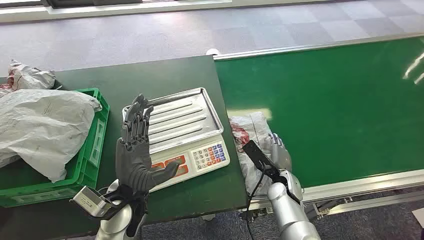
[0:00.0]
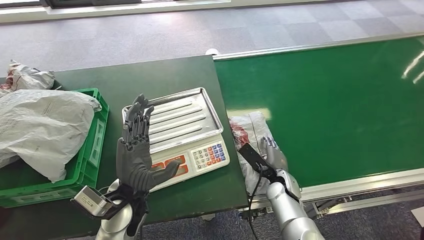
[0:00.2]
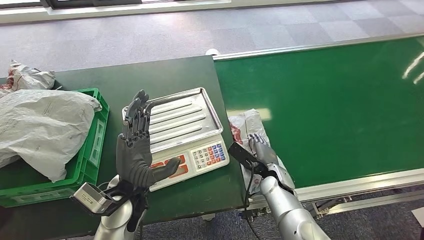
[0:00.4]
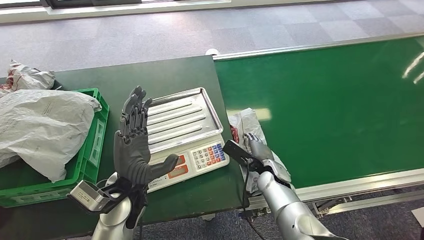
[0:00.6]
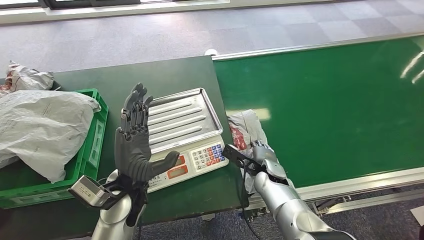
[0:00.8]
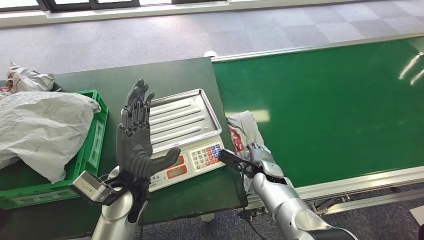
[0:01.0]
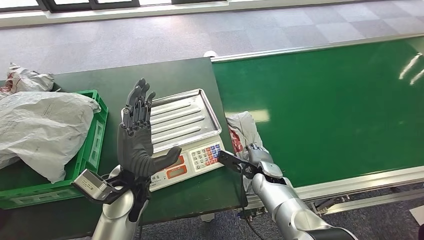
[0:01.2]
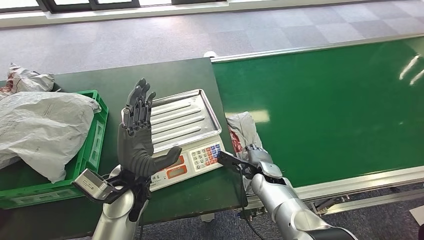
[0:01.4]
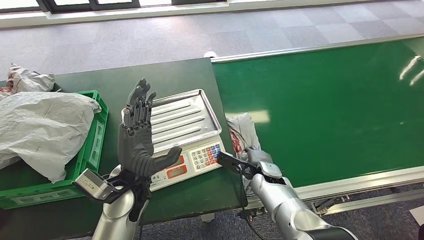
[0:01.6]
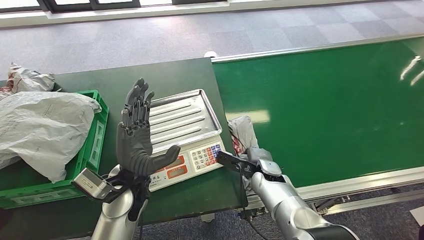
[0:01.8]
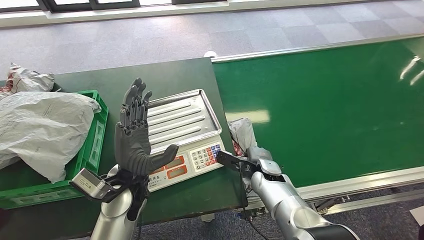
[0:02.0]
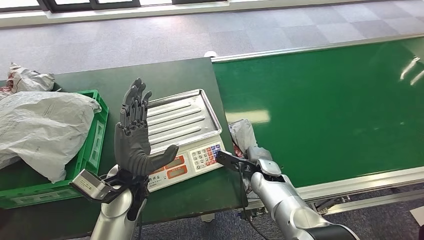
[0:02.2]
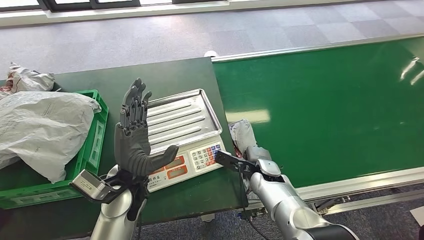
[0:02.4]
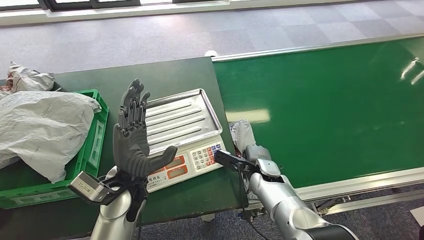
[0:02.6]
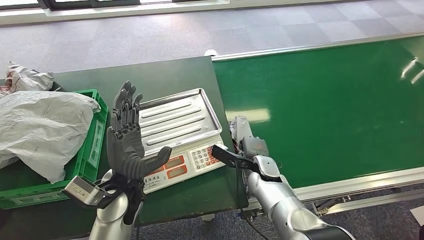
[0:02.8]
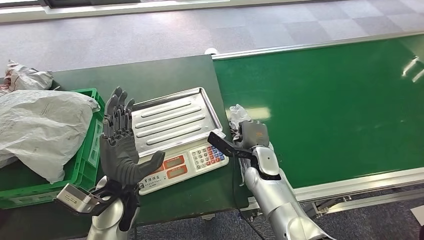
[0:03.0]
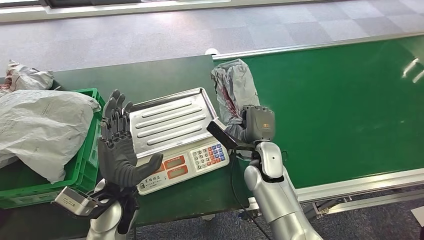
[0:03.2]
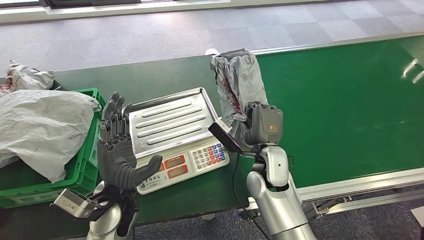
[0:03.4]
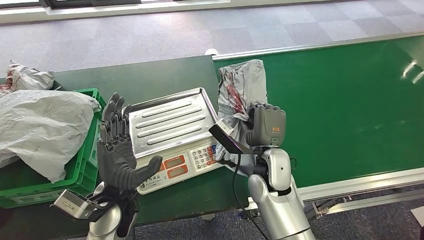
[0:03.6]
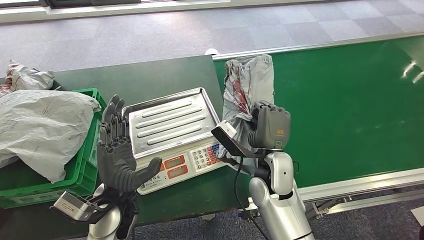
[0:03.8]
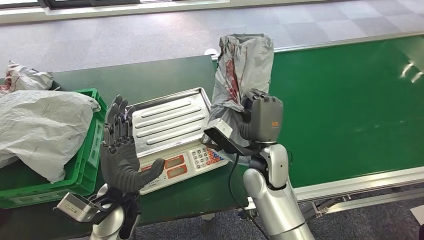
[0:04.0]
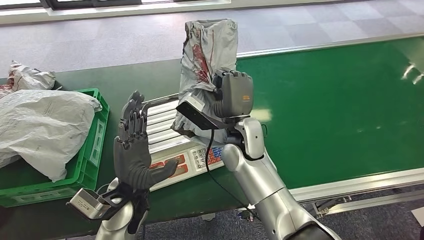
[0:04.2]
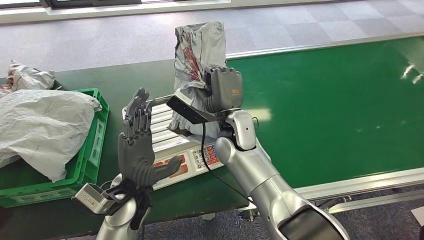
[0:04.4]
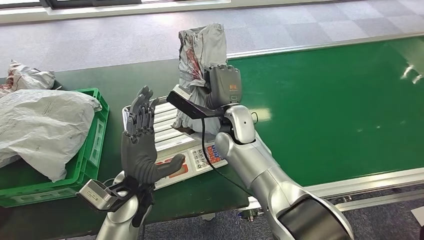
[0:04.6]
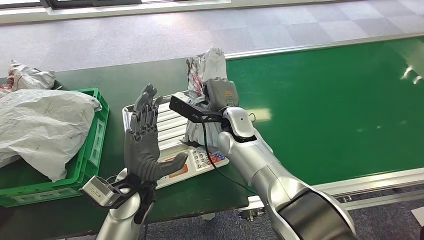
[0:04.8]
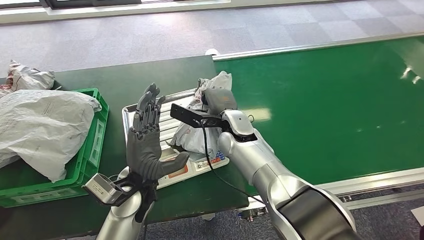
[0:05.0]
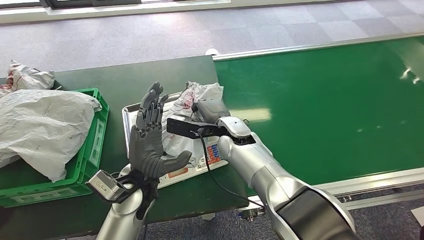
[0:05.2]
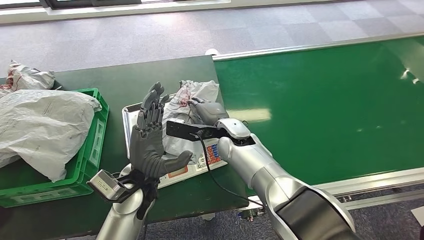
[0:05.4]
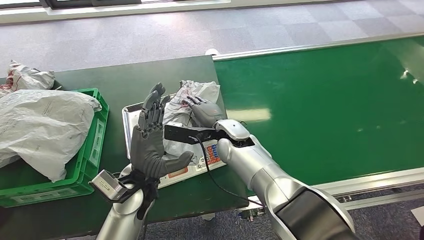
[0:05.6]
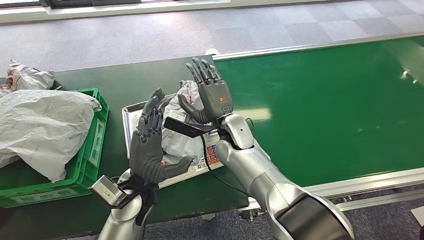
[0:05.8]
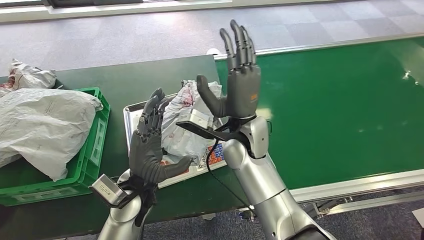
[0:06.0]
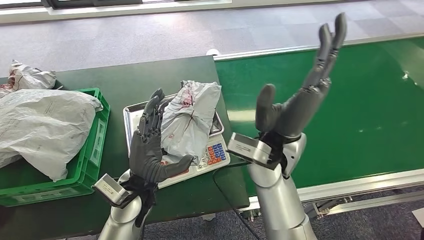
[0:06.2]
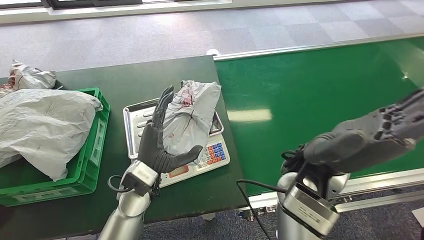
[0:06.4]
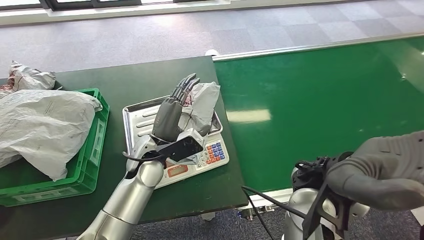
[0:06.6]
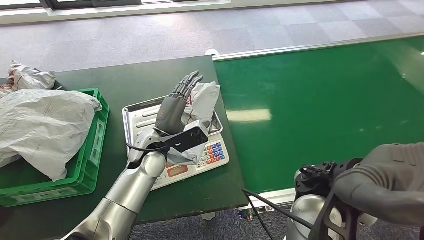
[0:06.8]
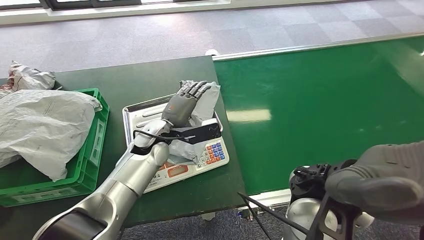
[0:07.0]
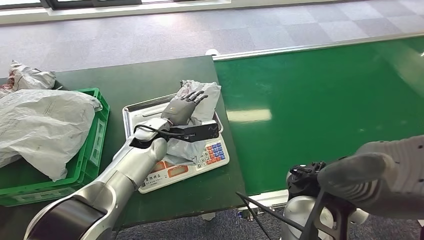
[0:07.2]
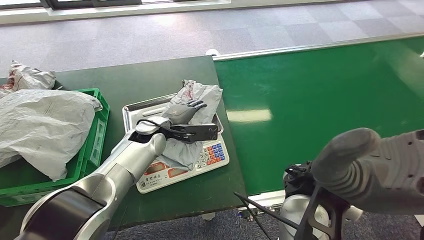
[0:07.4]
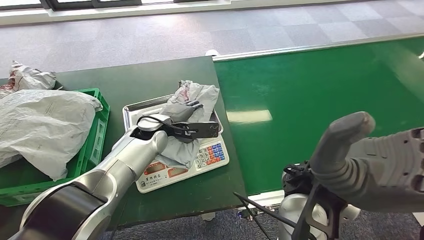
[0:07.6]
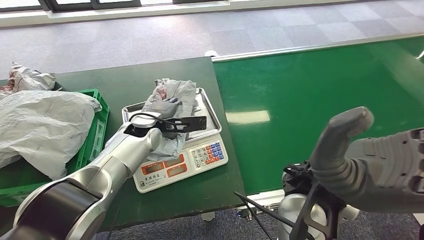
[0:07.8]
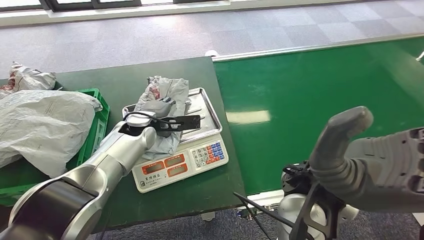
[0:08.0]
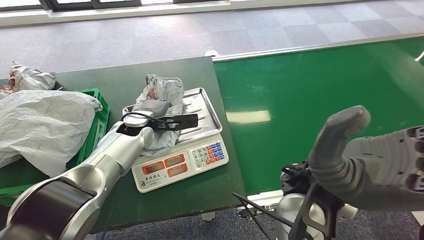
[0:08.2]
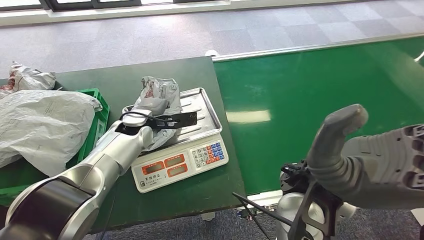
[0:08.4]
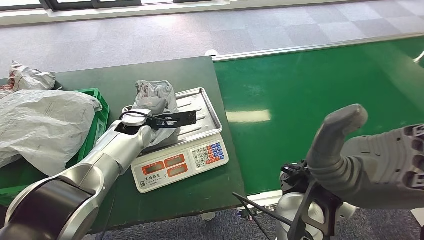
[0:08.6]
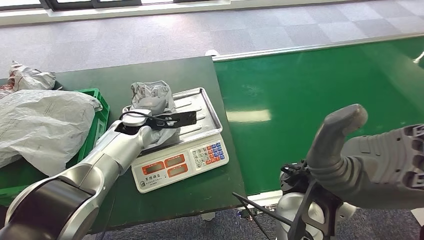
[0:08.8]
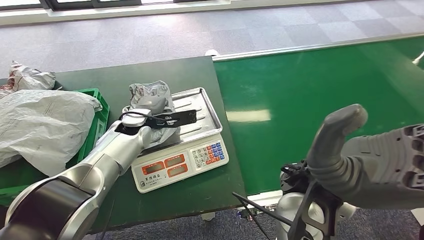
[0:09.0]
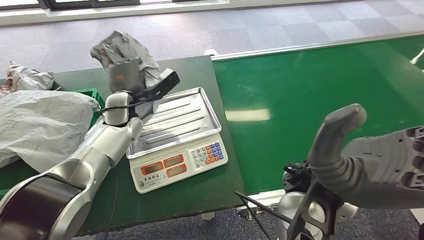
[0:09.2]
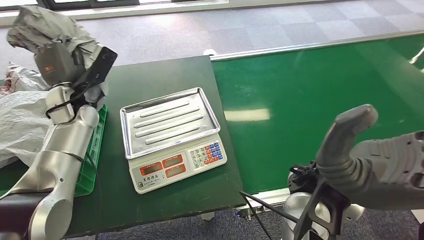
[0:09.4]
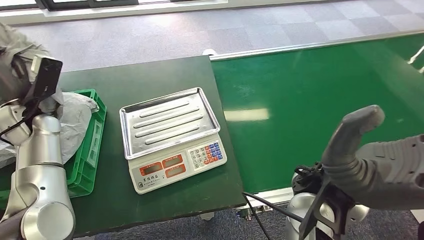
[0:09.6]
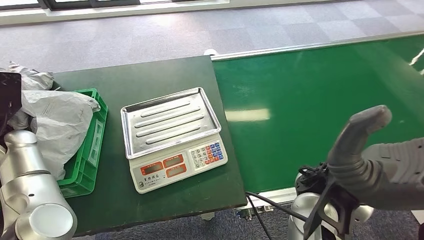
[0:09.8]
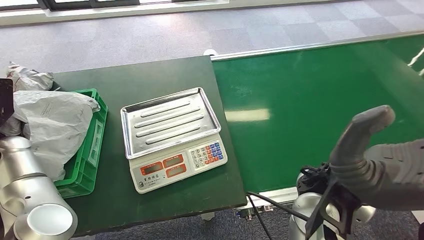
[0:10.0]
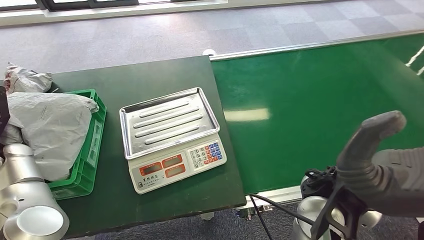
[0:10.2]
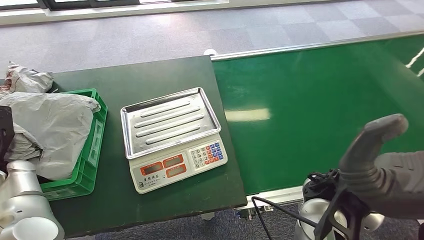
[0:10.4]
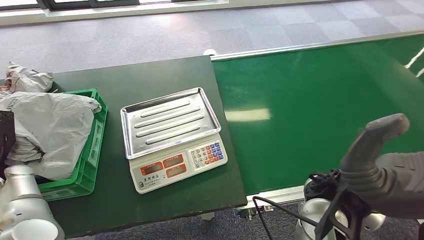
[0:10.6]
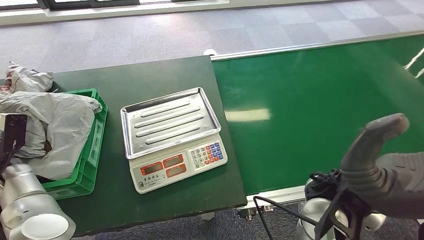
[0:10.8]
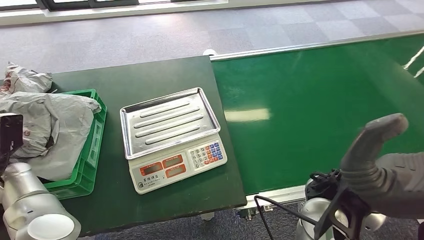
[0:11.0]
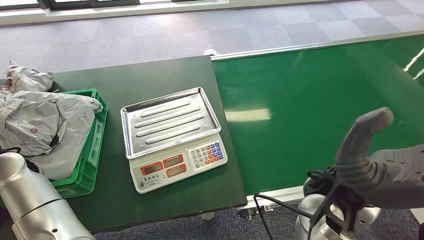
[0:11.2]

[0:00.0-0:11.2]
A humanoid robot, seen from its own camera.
Step, 0:00.0 to 0:03.6: Pick up the package from the conveyor belt.
Step, 0:03.8 to 0:06.8: Place the package onto the inbound machine.
Step, 0:07.0 to 0:09.2: Pick up the package from the inbound machine.
Step, 0:09.4 to 0:11.2: Place the package into the parcel locker.
0:09.6 to 0:11.2: The left hand heads backward, covering about 10 cm, and reaches about 10 cm downward, then returns.

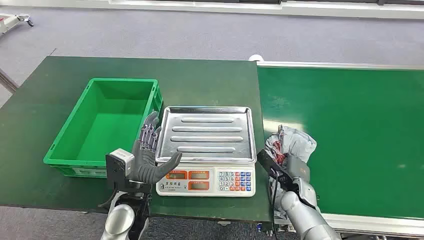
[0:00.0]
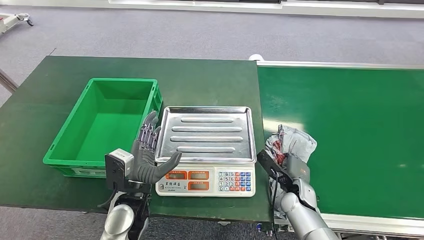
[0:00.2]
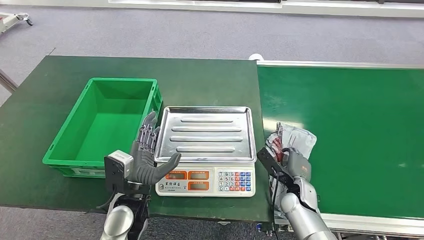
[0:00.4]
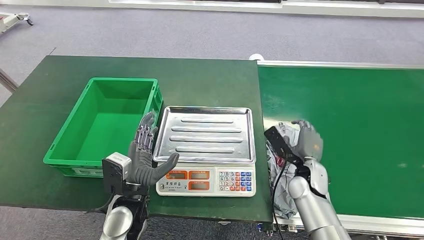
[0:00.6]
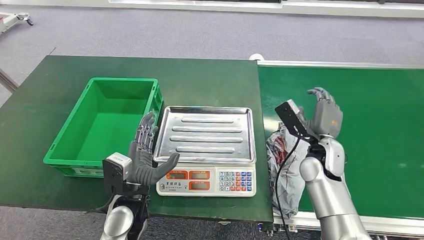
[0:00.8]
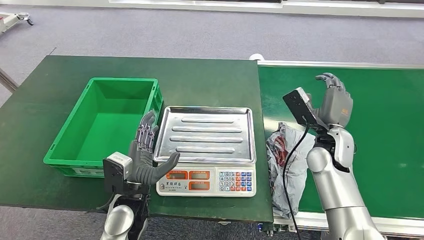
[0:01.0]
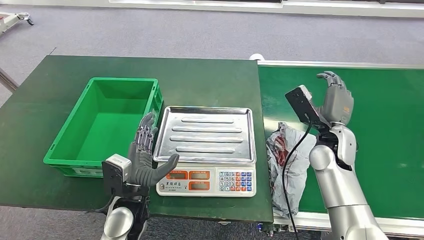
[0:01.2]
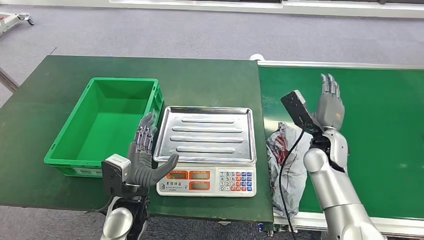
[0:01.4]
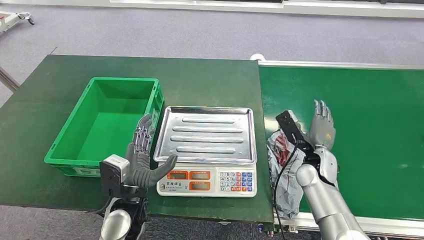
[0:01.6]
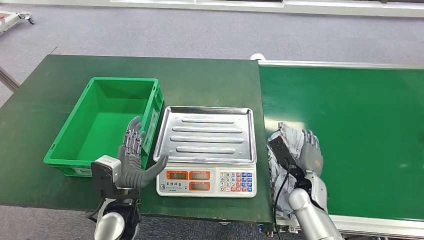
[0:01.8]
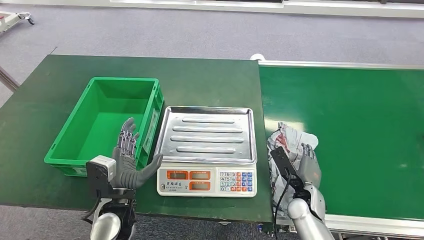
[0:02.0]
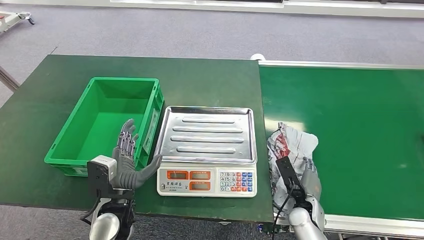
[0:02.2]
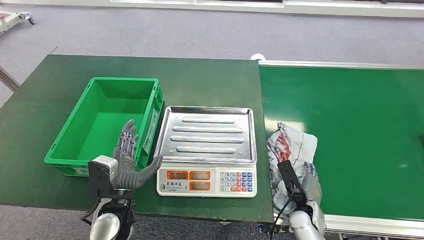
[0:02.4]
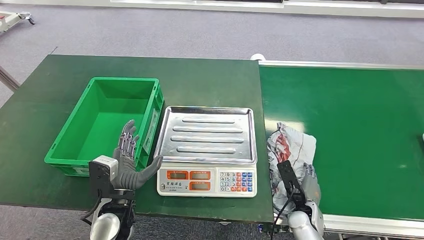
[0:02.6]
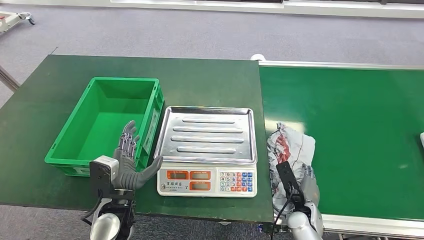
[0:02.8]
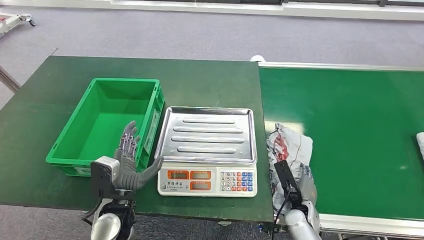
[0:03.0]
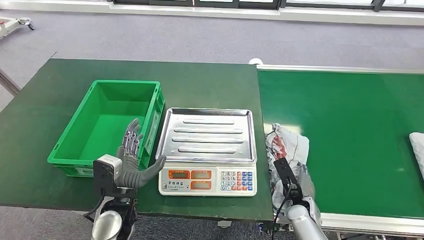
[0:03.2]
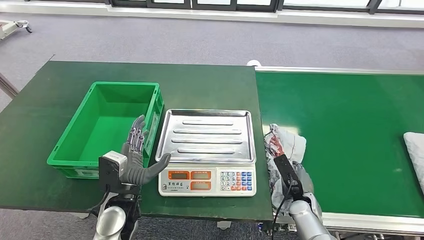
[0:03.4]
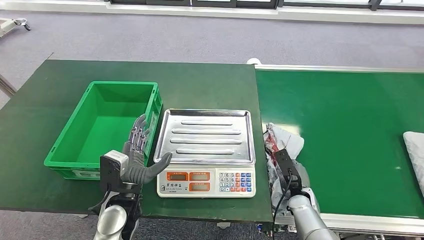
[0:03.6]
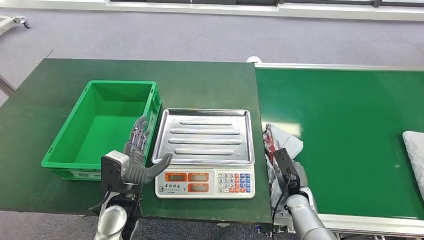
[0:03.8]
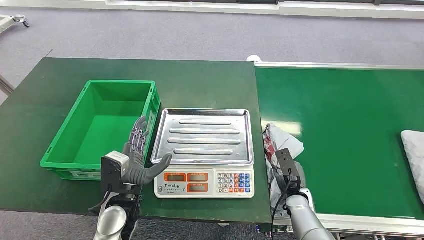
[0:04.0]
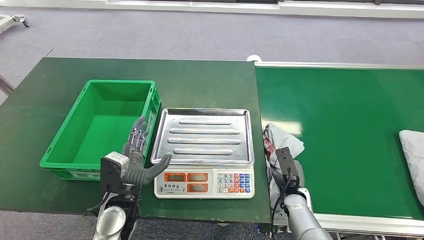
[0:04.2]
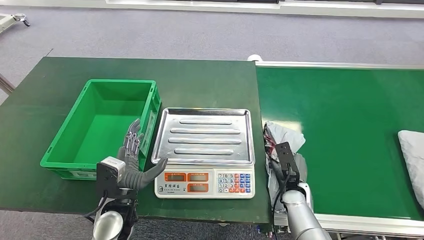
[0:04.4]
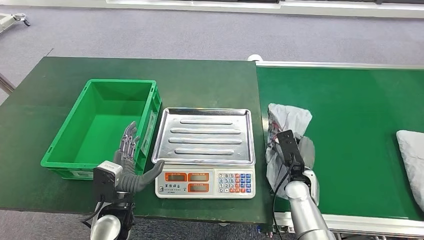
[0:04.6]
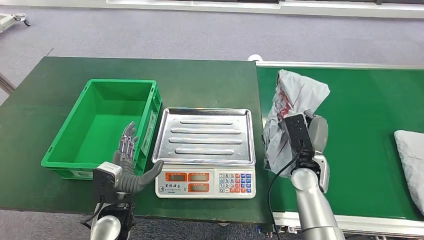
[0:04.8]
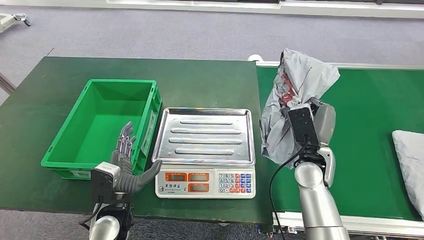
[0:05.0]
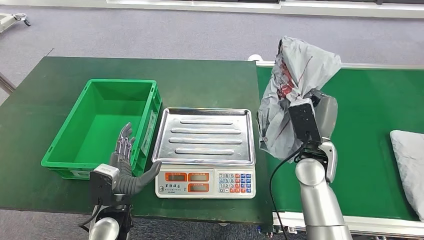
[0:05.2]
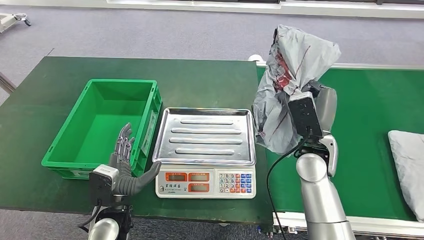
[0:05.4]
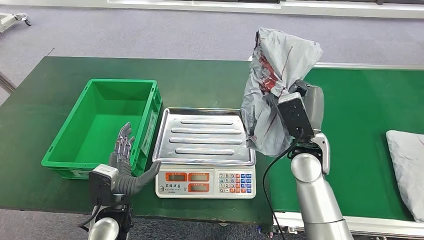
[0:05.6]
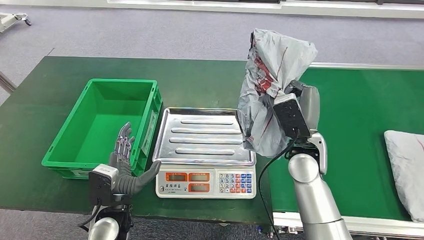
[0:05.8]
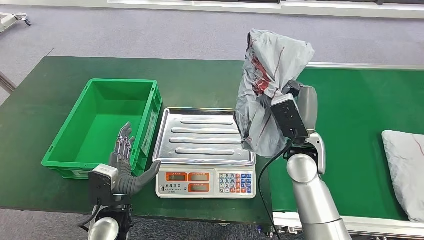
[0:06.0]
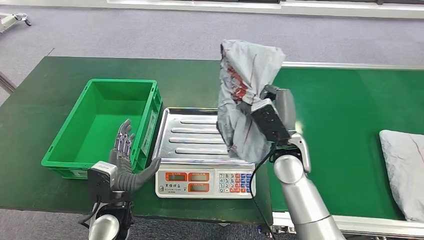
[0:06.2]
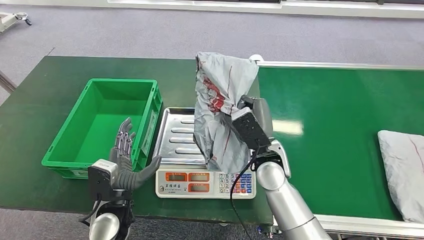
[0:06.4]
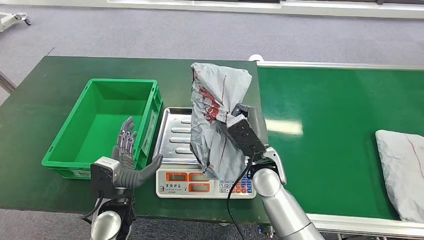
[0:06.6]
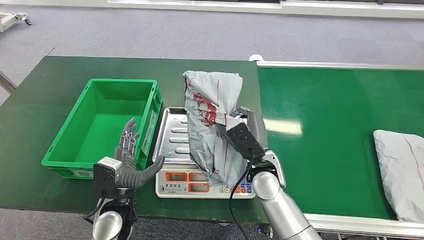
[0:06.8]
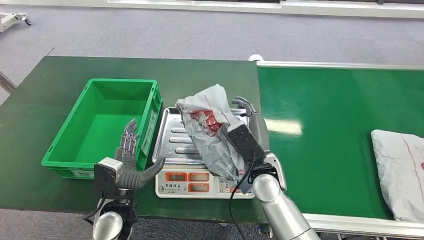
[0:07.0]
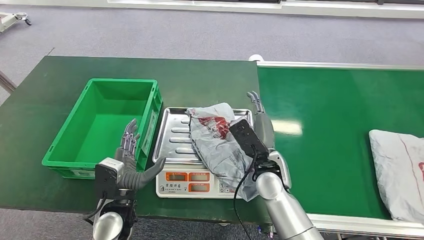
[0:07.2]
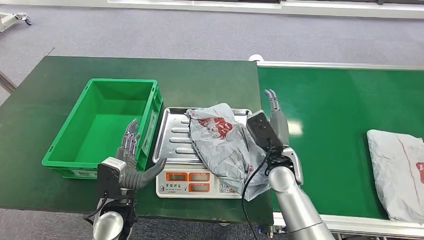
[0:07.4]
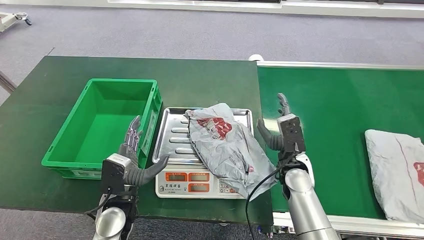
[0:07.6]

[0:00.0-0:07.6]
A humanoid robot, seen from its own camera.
Step, 0:00.0 to 0:04.8: Pick up the package from the conveyor belt.
0:01.6 to 0:03.0: The right hand goes approximately 20 cm downward and backward.
0:04.6 to 0:06.0: The right hand travels upward by roughly 15 cm.
